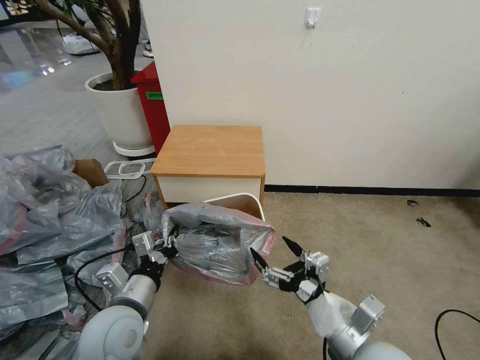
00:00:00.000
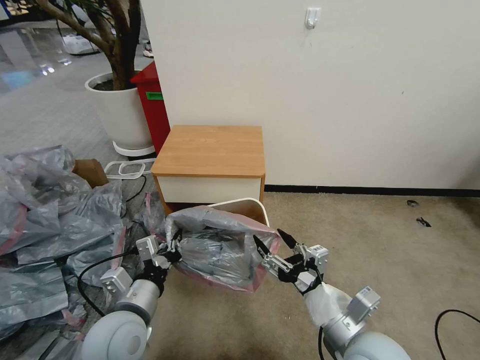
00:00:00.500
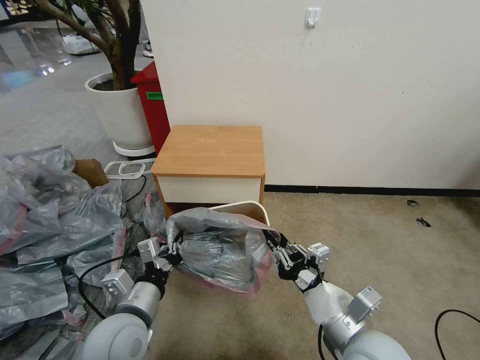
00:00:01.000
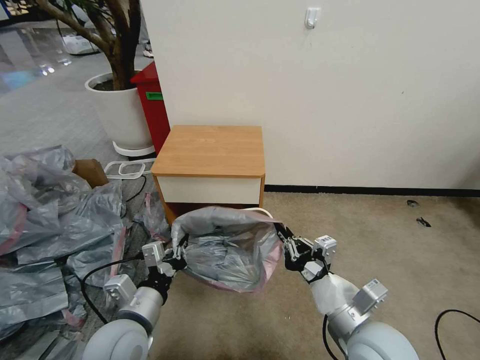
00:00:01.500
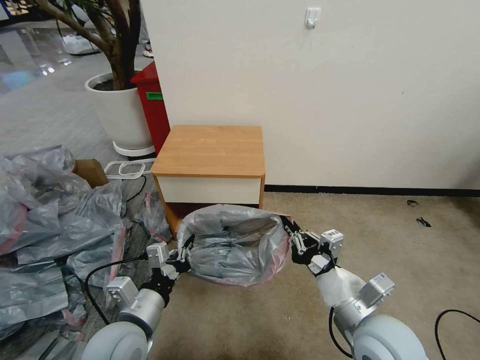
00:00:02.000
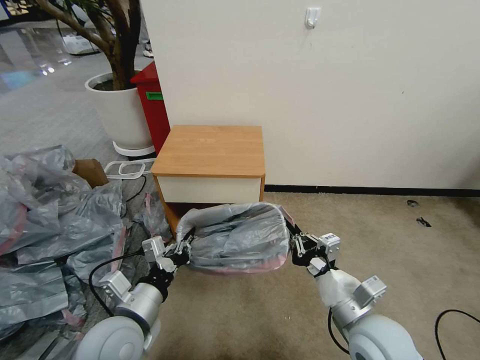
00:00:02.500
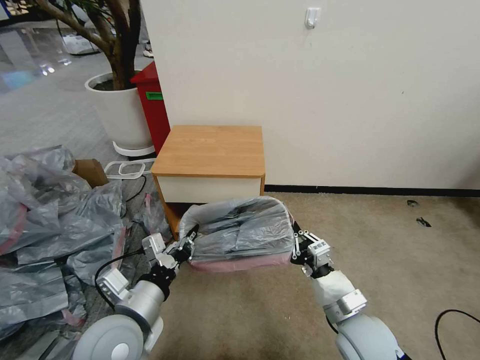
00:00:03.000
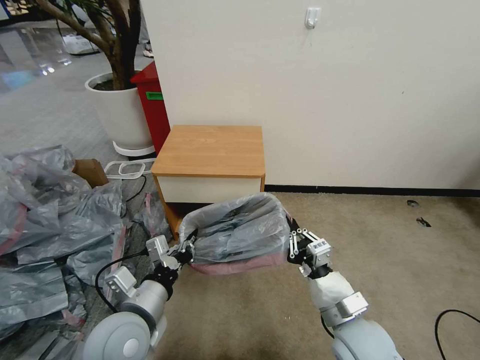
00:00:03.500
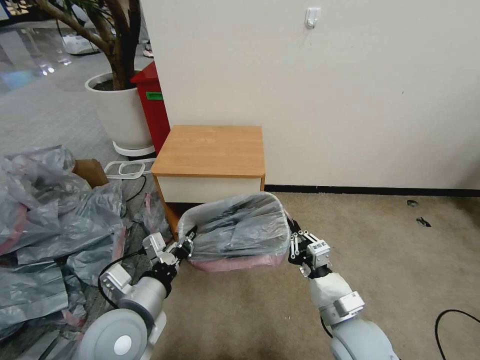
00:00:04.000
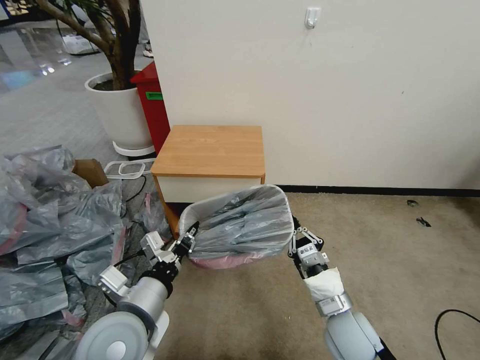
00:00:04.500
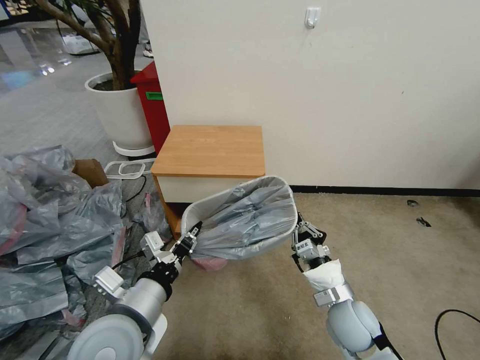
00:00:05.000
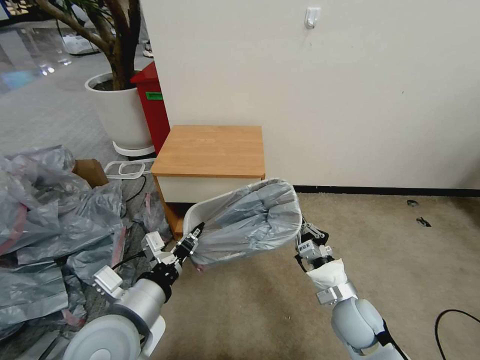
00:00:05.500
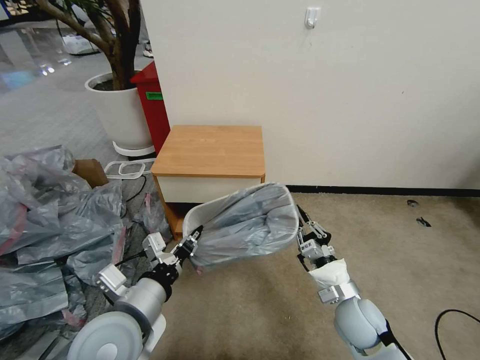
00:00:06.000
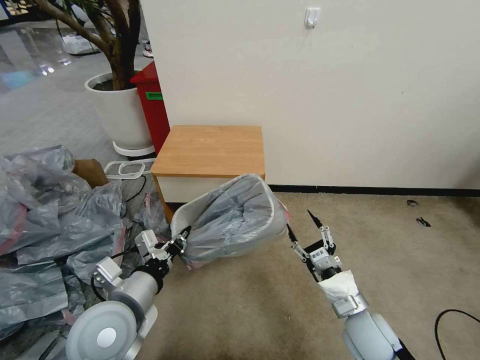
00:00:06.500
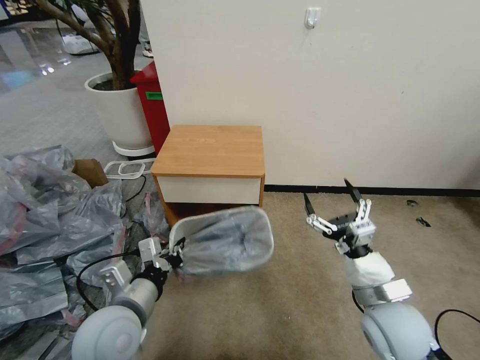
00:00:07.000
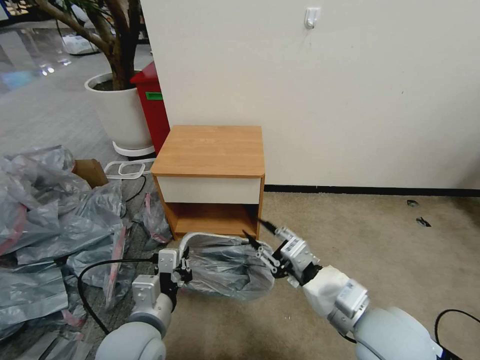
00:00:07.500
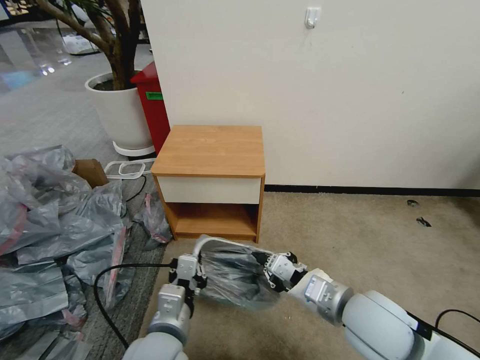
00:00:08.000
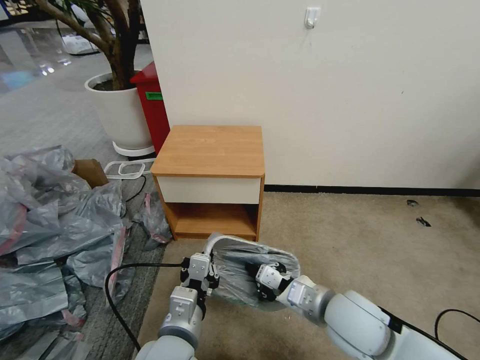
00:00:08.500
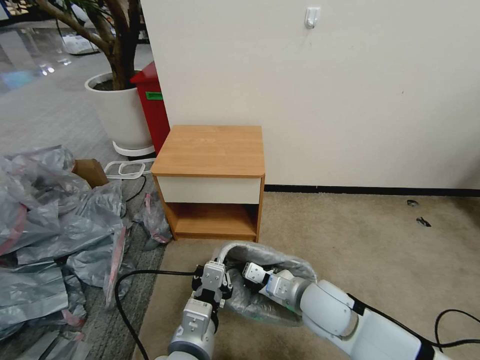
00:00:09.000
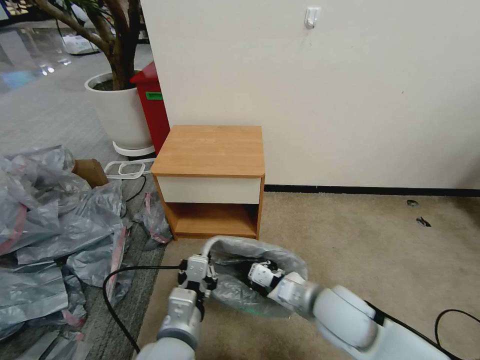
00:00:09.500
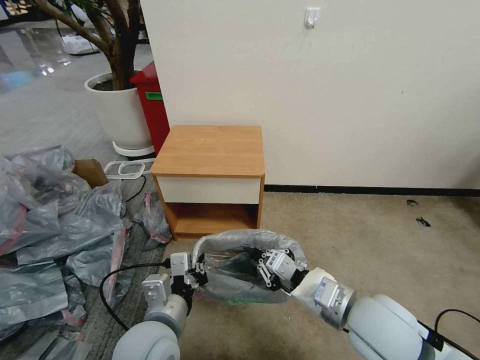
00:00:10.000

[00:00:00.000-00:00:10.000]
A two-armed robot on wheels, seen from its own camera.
Task of the whole recording: Pick up the garbage bag from the table and place it over the trash can.
00:00:00.000 to 00:00:02.000: The right gripper closes up.
00:00:02.000 to 00:00:04.000: The right gripper heads downward, covering some 5 cm.
00:00:04.000 to 00:00:06.000: The right gripper moves downward and forward, roughly 10 cm.
00:00:06.000 to 00:00:08.000: The right gripper moves upward, roughly 15 cm, and opens and closes again. Meanwhile the left gripper heads downward and to the right, covering some 10 cm.
00:00:08.000 to 00:00:10.000: The right gripper goes downward and returns, roughly 10 cm each way.

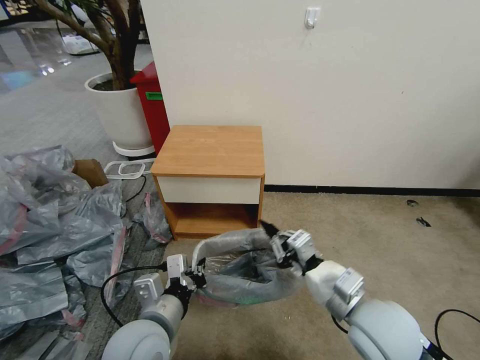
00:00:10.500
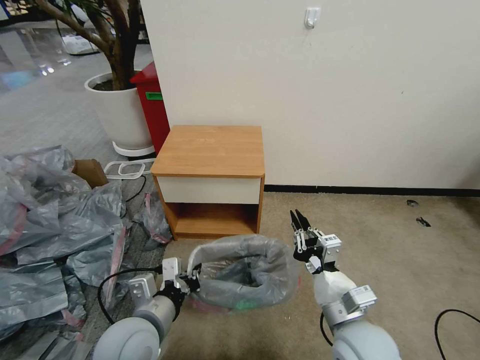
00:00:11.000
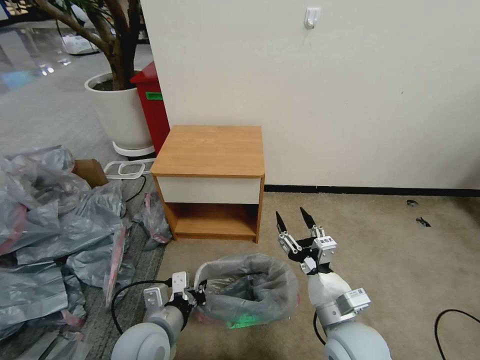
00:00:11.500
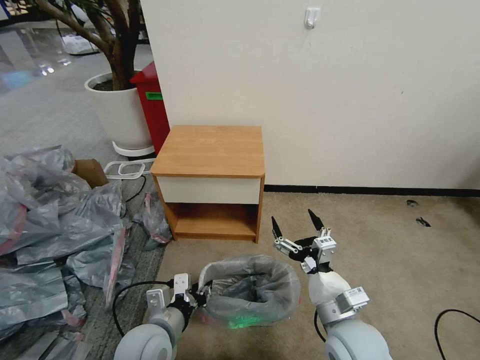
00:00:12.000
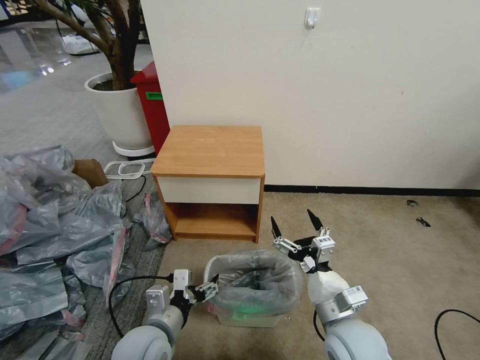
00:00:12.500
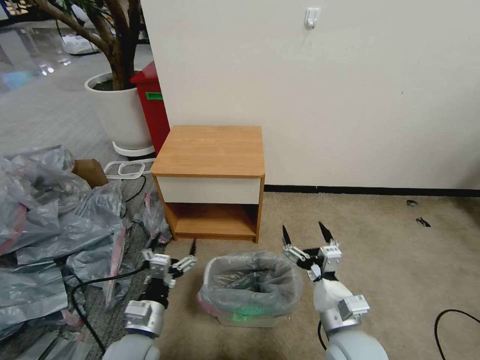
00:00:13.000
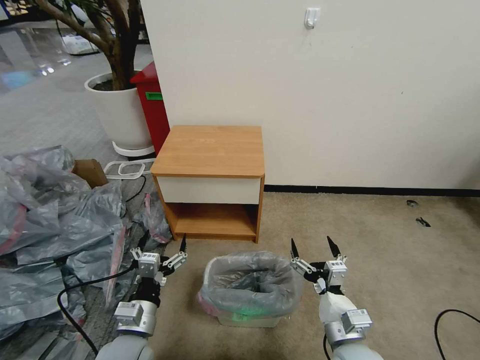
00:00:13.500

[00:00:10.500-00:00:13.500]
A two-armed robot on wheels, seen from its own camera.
Task of the whole recording: Pick up the garbage bag from the table and place it over the trash can.
00:00:10.500 to 00:00:12.000: Both grippers move downward, about 10 cm. The left gripper opens its fingers. The right gripper opens.
00:00:12.000 to 00:00:13.500: The left gripper opens its fingers. Meanwhile the right gripper is displaced downward by some 5 cm.

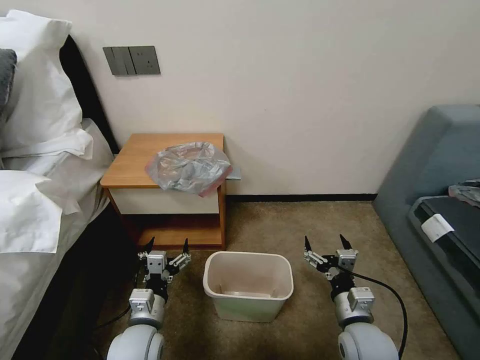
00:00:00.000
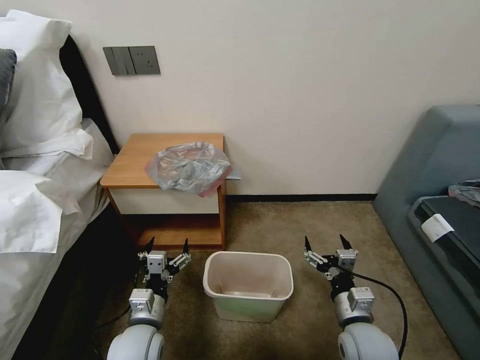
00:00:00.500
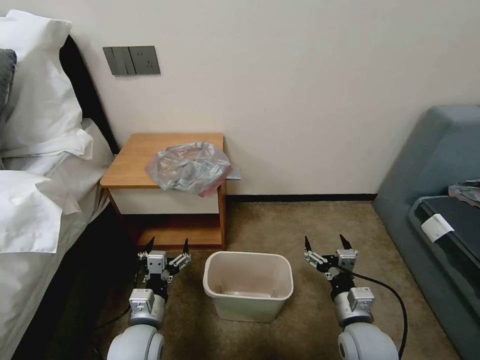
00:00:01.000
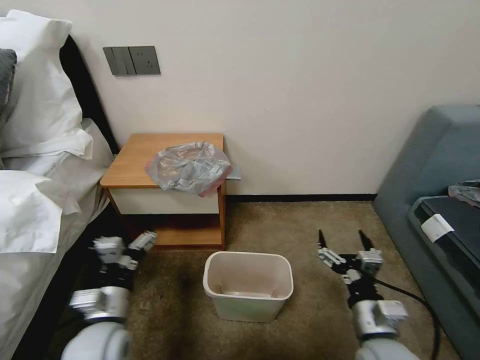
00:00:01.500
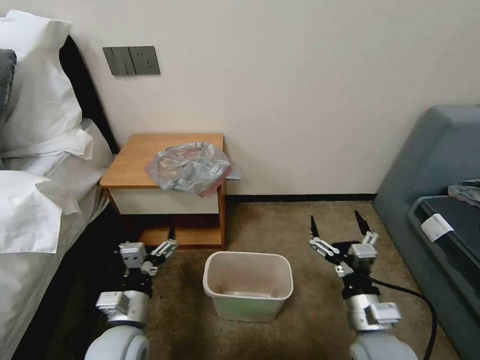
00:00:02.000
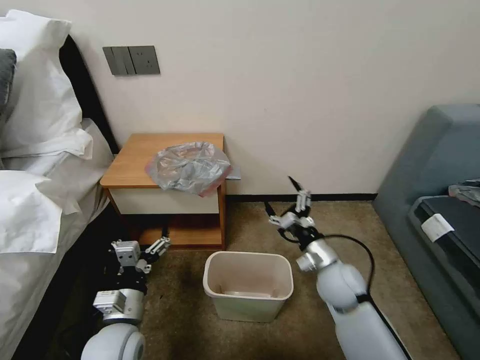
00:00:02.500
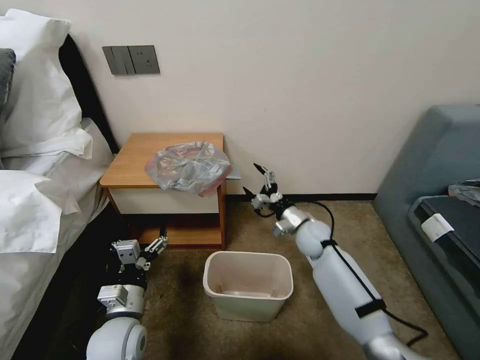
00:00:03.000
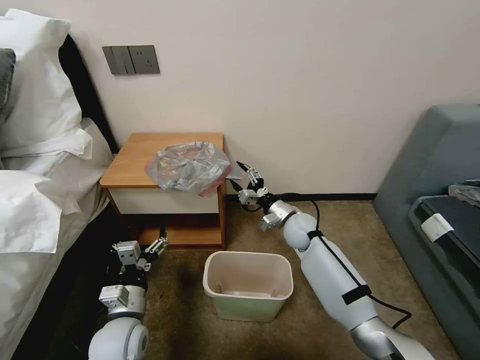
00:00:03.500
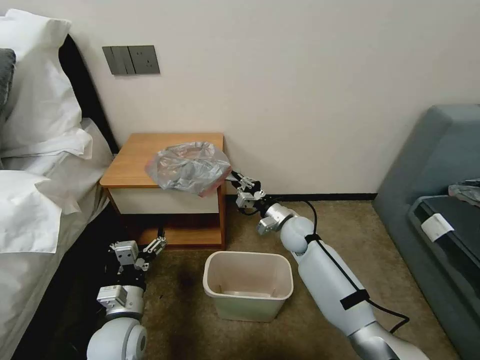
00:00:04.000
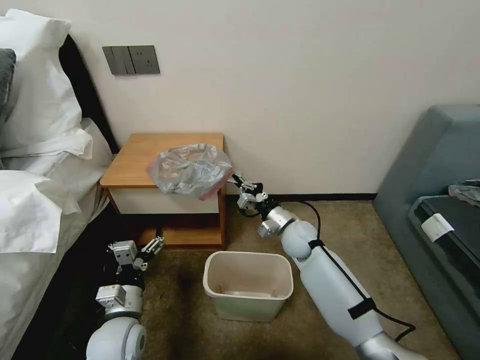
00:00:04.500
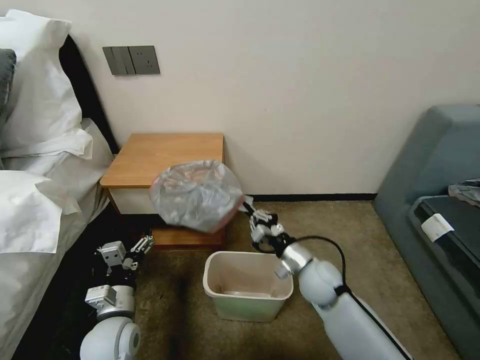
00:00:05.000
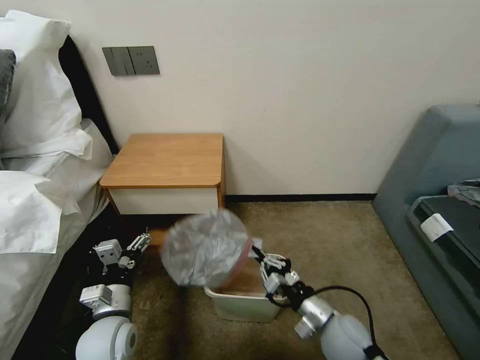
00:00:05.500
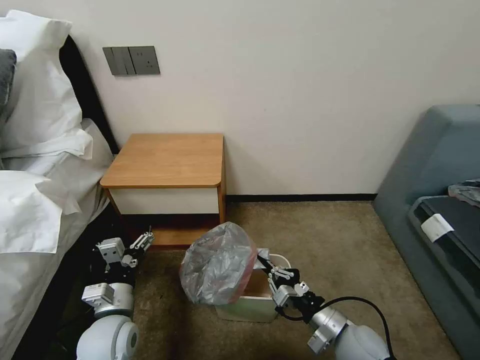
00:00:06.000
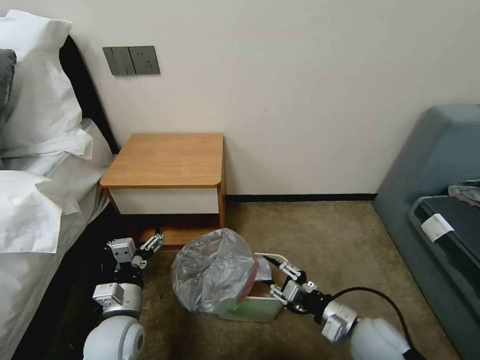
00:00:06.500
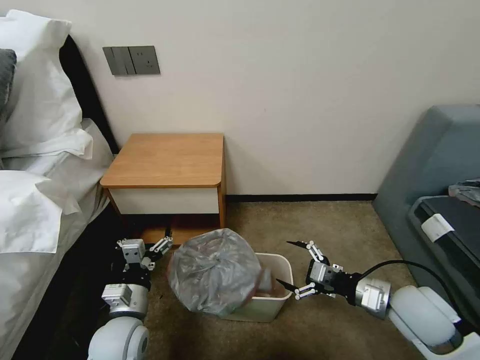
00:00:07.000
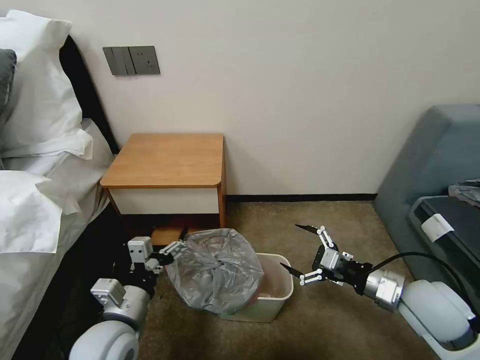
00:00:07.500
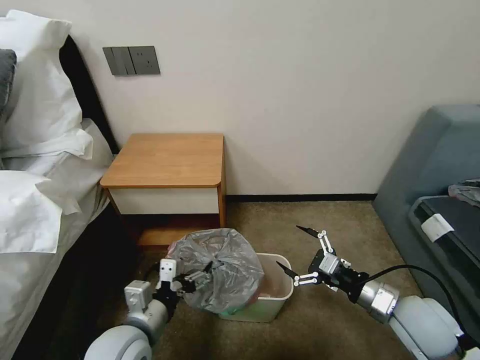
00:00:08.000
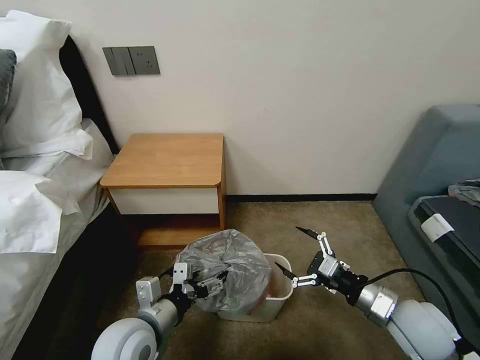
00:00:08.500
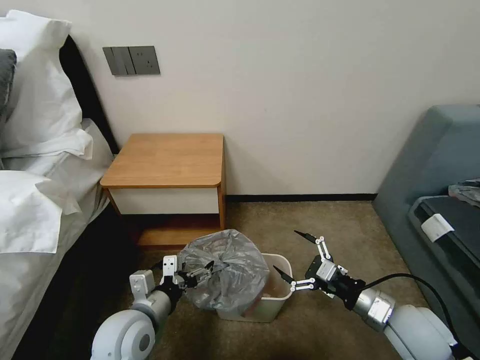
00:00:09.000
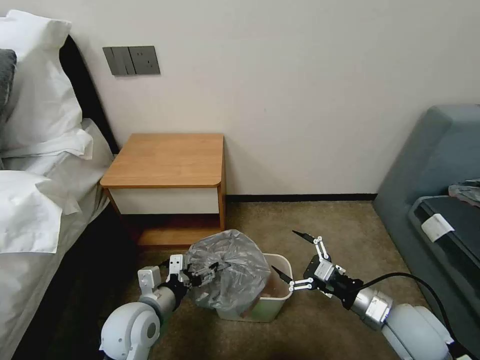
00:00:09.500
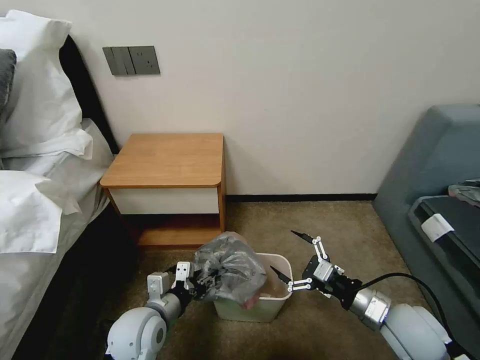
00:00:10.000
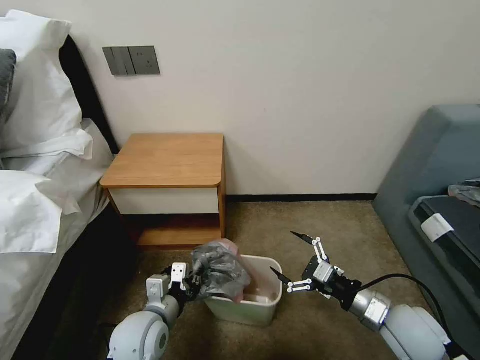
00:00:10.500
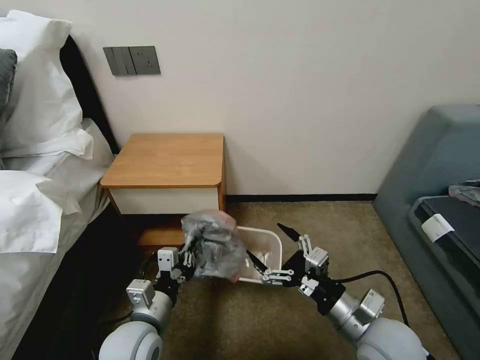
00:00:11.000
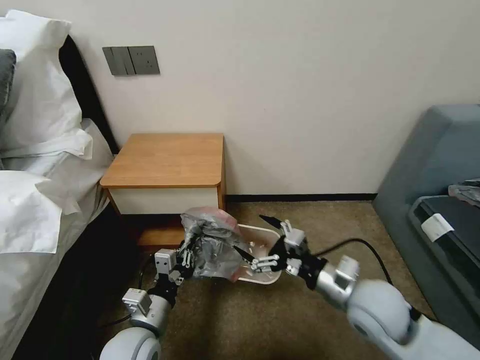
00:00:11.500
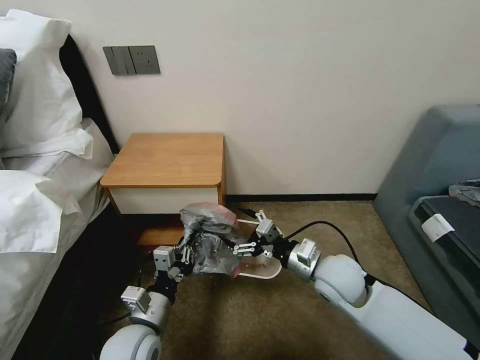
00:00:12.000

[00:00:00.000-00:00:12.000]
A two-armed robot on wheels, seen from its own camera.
Task of the whole recording: Pick up the garbage bag from the table and place it over the trash can.
00:00:02.000 to 00:00:04.000: The right gripper moves forward, roughly 30 cm, and closes.
00:00:04.000 to 00:00:06.000: The right gripper is displaced backward by approximately 25 cm.
00:00:06.000 to 00:00:08.000: The right gripper moves upward and to the right, approximately 15 cm, and opens up, while the left gripper goes about 10 cm upward and to the right.
00:00:08.000 to 00:00:10.000: The left gripper ends up some 5 cm from where it was, and closes its fingers.
00:00:10.000 to 00:00:12.000: The right gripper travels to the left and forward by some 15 cm, while the left gripper closes.
